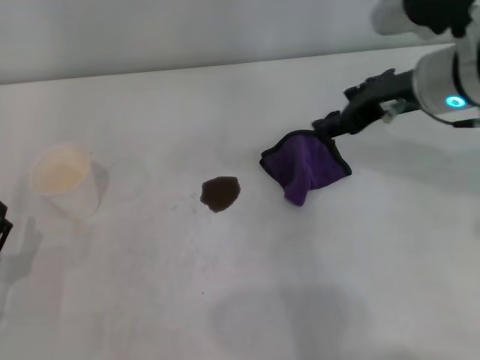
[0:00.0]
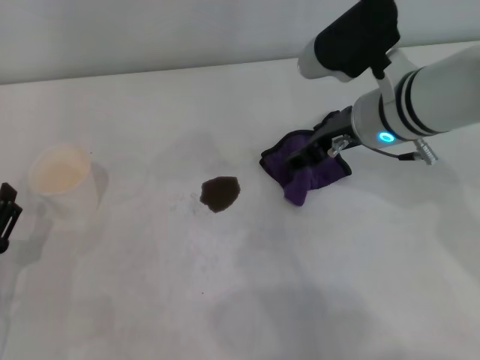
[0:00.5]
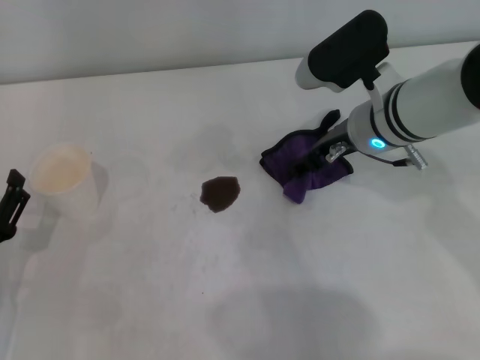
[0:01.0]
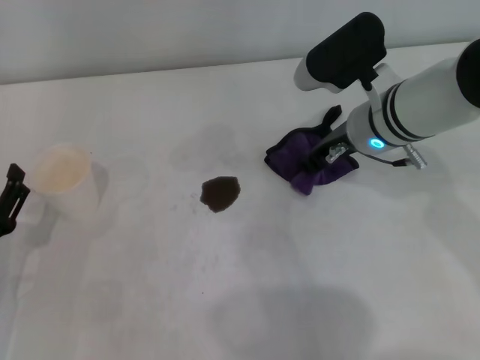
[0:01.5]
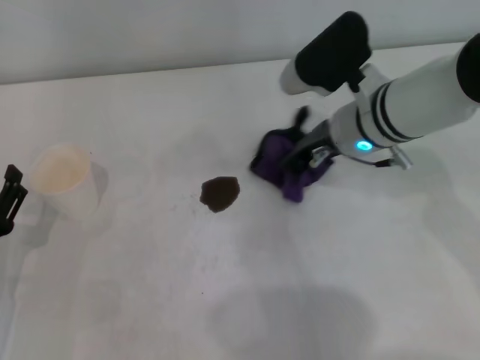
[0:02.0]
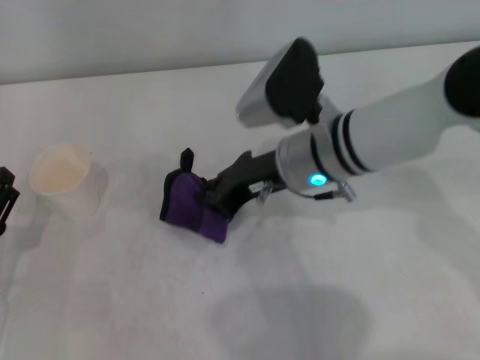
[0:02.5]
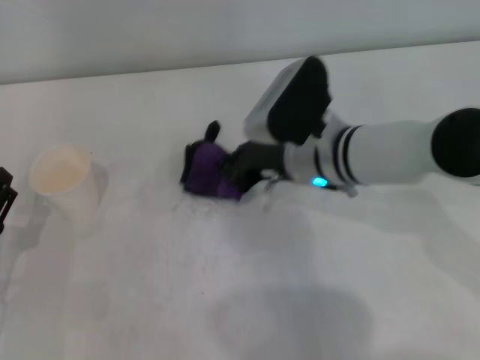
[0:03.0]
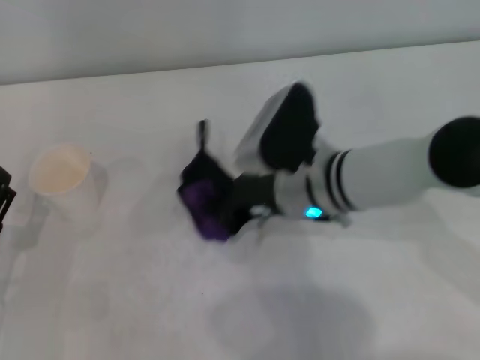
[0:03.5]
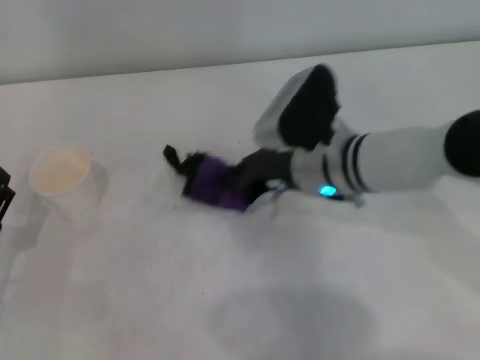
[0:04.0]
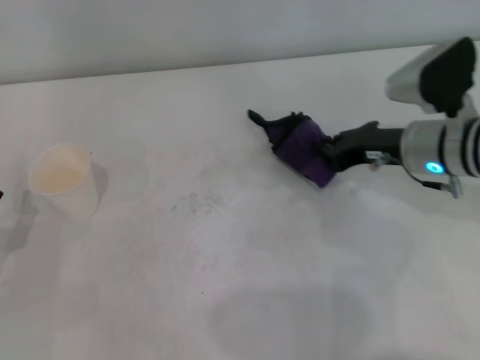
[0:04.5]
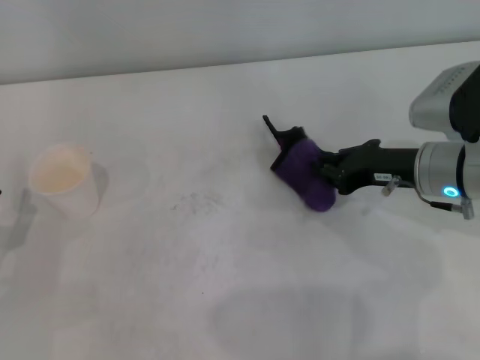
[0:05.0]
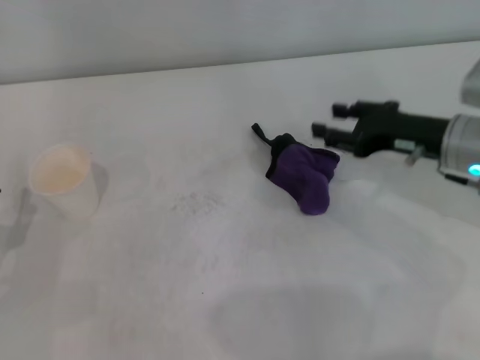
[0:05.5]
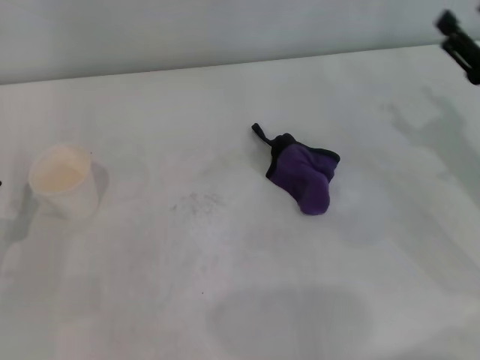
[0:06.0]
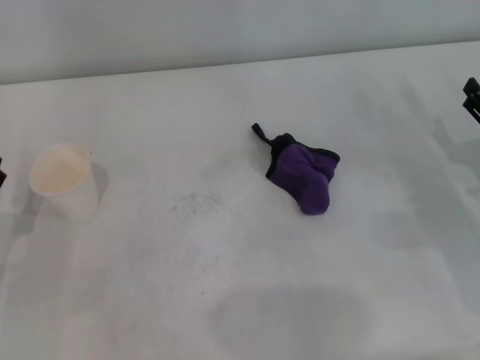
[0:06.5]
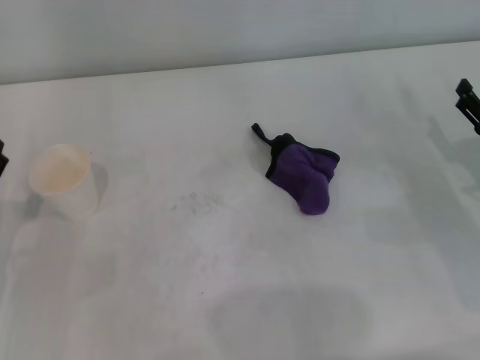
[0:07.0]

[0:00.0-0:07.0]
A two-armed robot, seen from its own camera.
Step, 0:01.5 to 0:04.0: Wipe the stains off the table with the right gripper.
Step, 0:04.5 to 0:05.0: Place the rag on the table with the right gripper.
0:00.0 to 0:02.0: The right gripper moves downward and to the left, some 10 cm, and closes.
0:02.0 to 0:03.5: The right gripper goes approximately 5 cm to the left.
0:03.5 to 0:05.0: The right gripper shifts about 15 cm to the right.
0:05.0 to 0:07.0: The right gripper shifts some 10 cm to the right and backward, and opens.
